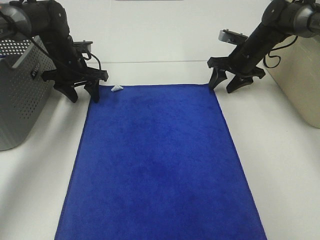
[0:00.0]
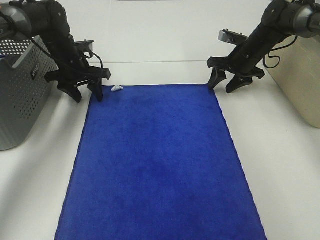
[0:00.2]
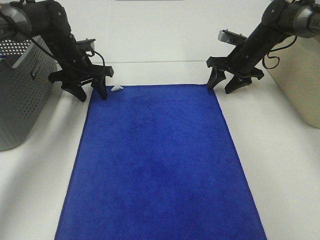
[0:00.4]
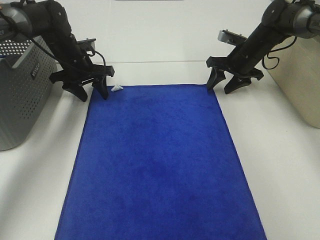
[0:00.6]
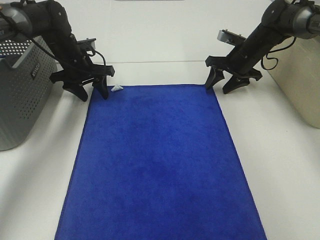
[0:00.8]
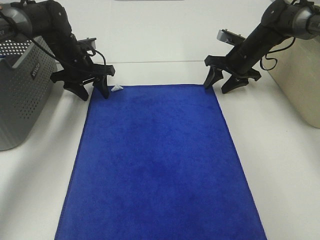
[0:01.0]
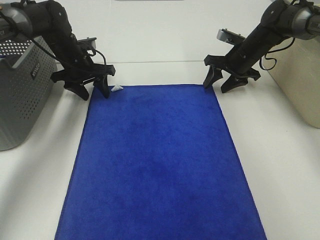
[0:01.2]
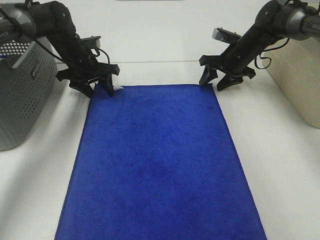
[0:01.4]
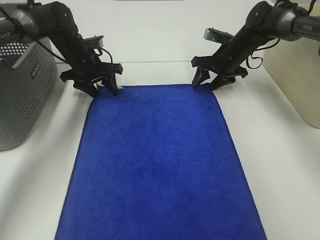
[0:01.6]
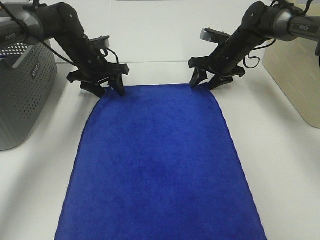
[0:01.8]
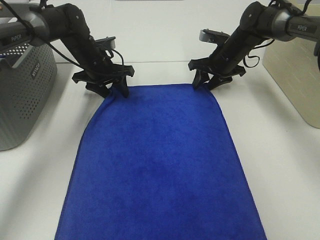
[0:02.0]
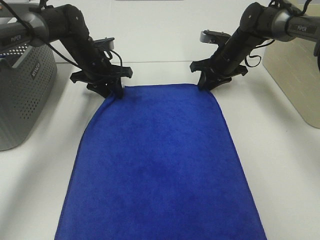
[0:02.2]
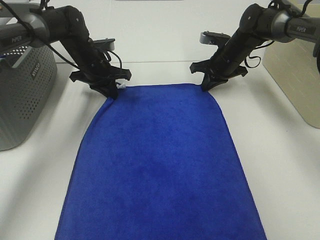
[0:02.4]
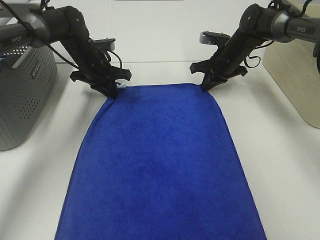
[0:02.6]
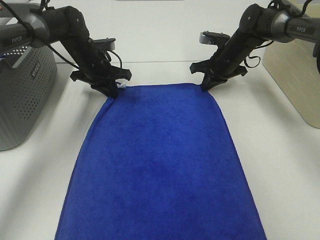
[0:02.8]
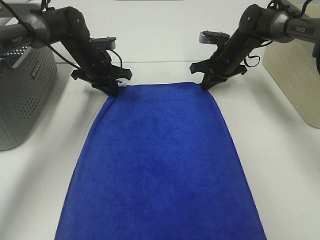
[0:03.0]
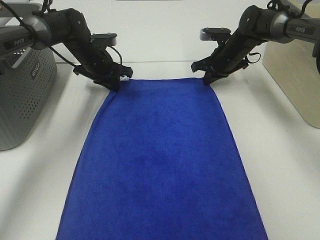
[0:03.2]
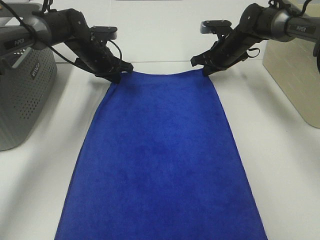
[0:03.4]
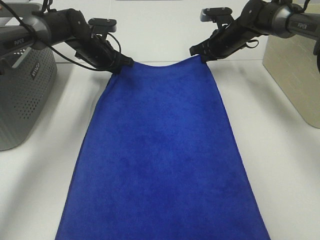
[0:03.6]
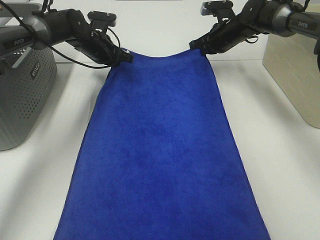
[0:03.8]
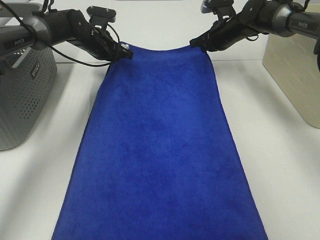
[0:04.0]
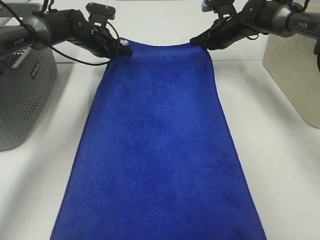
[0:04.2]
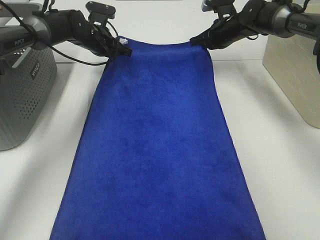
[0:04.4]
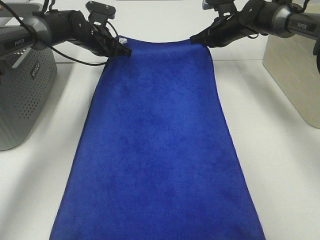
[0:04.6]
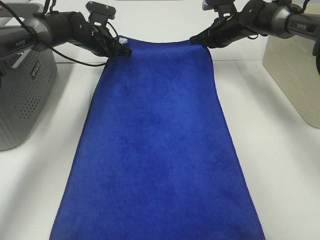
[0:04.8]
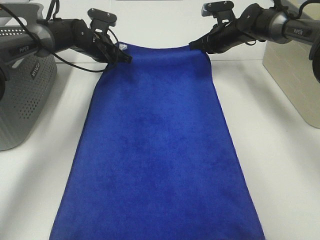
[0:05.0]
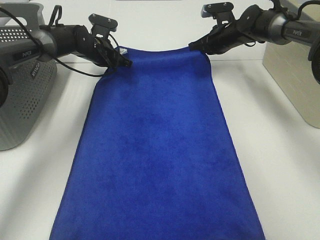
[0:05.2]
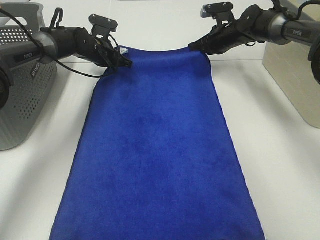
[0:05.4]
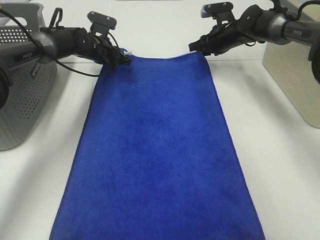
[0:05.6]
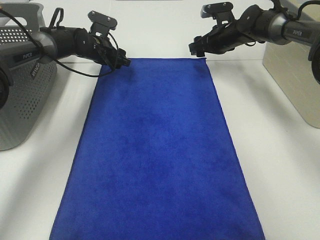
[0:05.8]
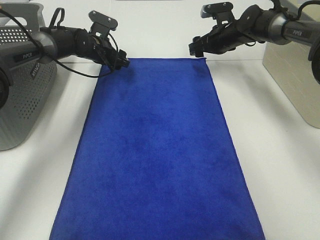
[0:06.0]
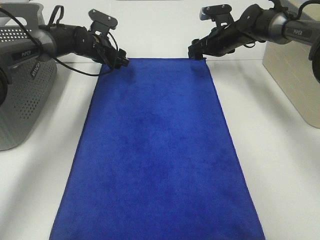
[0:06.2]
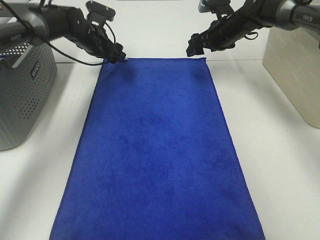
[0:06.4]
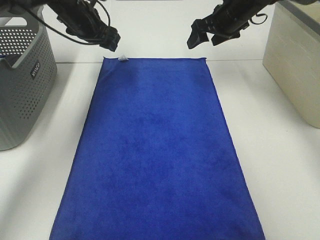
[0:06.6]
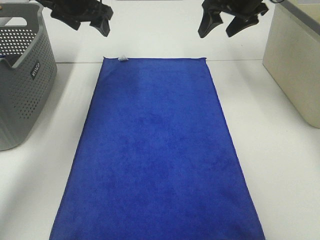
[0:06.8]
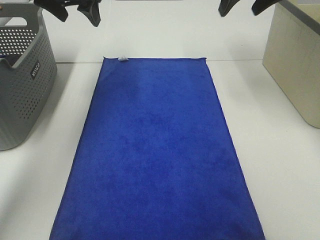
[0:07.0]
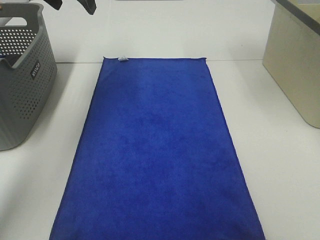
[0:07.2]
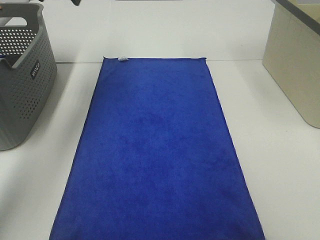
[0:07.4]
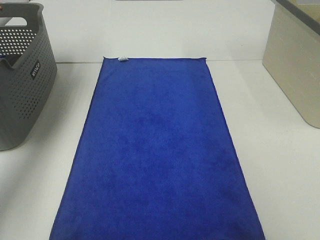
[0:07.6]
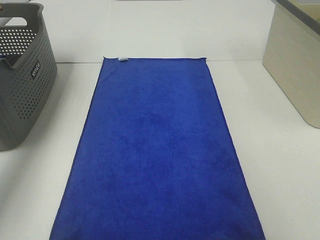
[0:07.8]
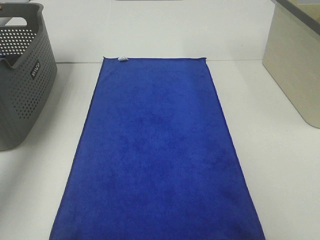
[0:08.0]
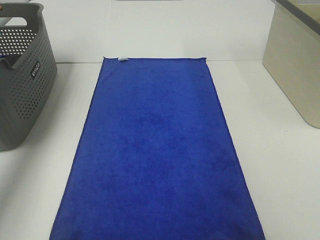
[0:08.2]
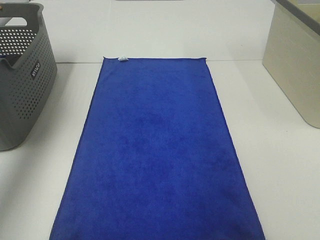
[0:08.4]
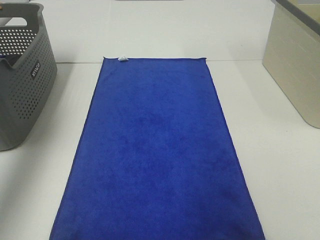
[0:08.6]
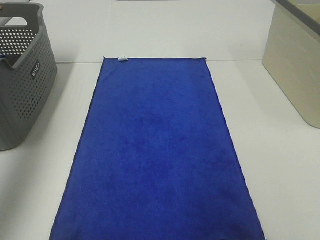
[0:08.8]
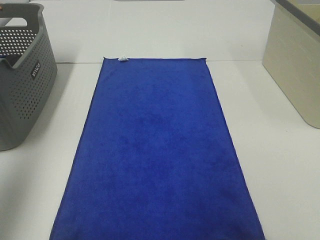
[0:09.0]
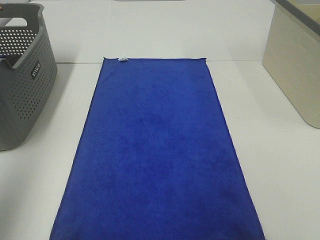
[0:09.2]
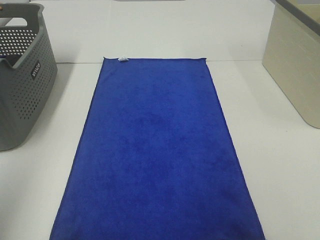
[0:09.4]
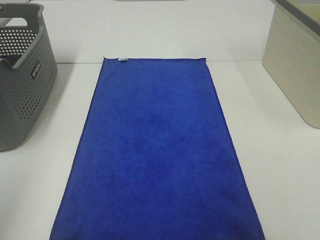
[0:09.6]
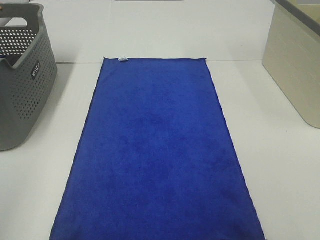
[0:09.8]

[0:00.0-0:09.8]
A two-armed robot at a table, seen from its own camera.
Task of the whole recording: Remove the towel and place it.
0:00.0 to 0:01.4: The grippers move only a little.
0:01.4 to 0:02.8: The left gripper closes its fingers. The right gripper closes.
0:02.8 to 0:04.2: The right gripper moves approximately 5 cm; the left gripper shifts by some 5 cm.
0:04.2 to 0:05.6: The left gripper opens up. The right gripper opens its fingers.
0:05.6 to 0:07.0: The two grippers go approximately 25 cm upward and backward. The right gripper opens its fingers.
0:07.0 to 0:08.4: The left gripper is displaced to the left, backward and upward by some 20 cm. Meanwhile the right gripper is displaced backward, to the right and upward by about 20 cm.
0:08.4 to 0:09.8: The left gripper moves backward, some 35 cm.

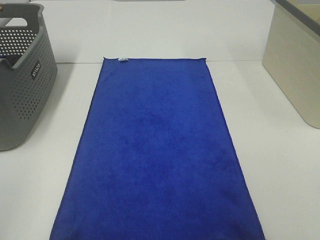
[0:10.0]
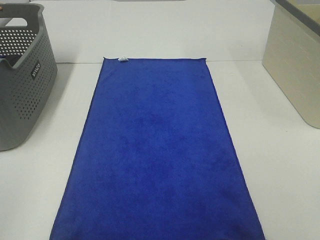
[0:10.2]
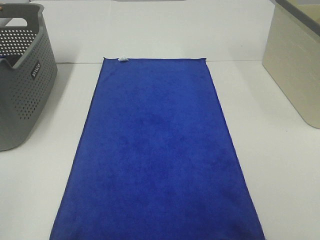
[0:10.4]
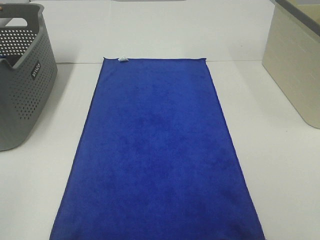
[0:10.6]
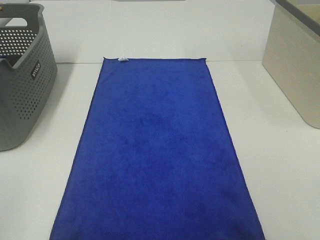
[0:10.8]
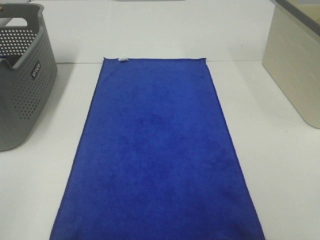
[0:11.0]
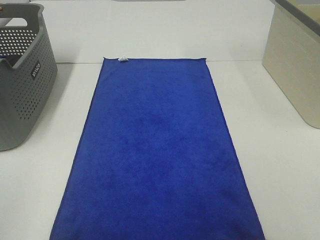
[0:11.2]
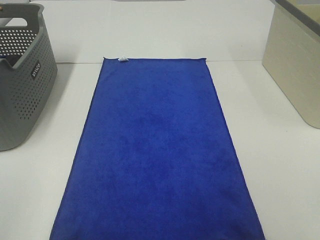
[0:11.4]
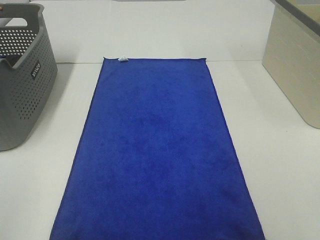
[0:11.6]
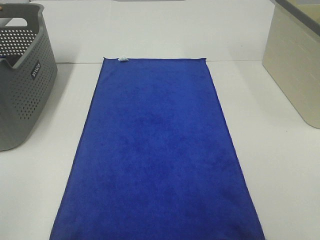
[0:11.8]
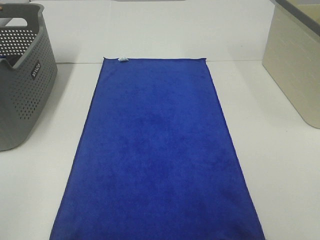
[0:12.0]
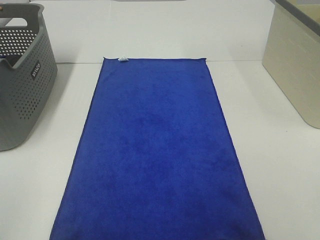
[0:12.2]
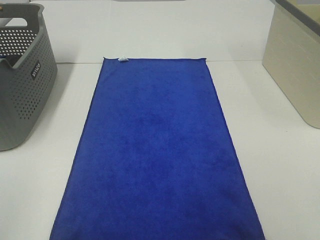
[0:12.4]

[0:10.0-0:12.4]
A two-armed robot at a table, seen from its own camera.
Task of the whole recording: Remove the towel and place it.
0:11.2 to 0:12.4: Both grippers stay put.

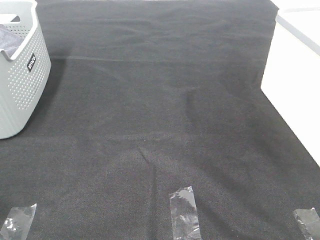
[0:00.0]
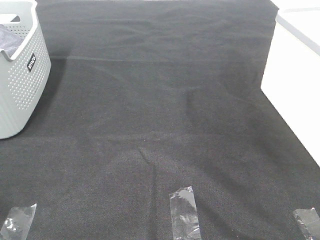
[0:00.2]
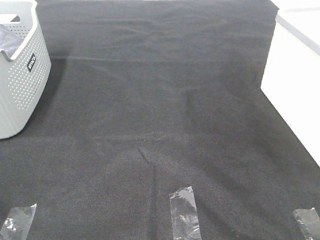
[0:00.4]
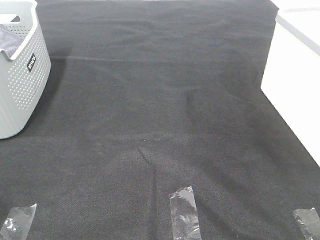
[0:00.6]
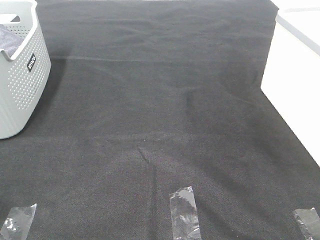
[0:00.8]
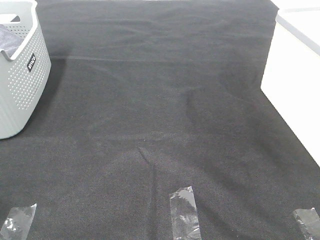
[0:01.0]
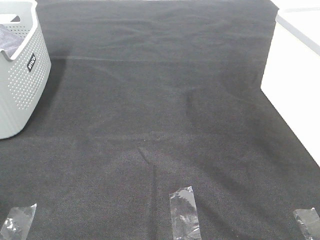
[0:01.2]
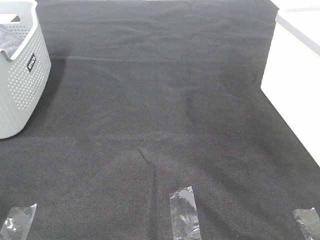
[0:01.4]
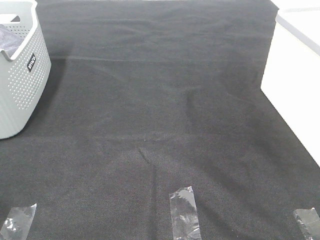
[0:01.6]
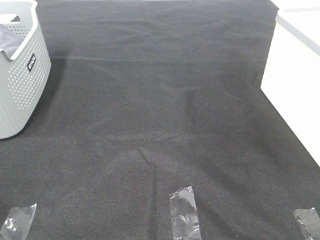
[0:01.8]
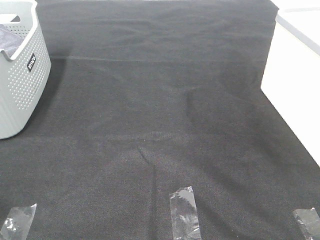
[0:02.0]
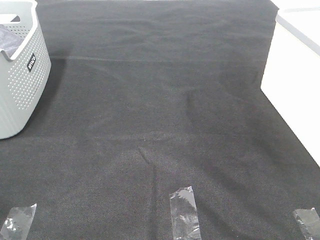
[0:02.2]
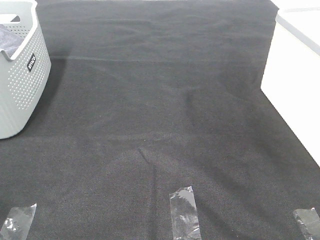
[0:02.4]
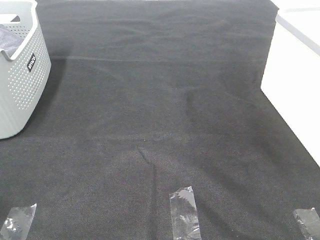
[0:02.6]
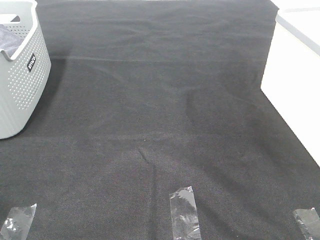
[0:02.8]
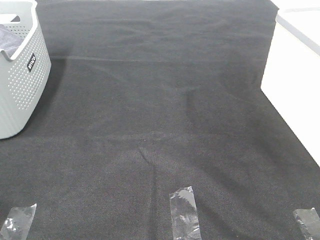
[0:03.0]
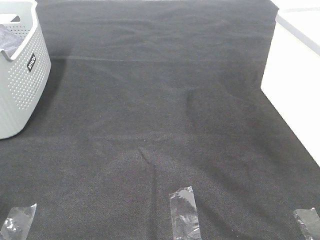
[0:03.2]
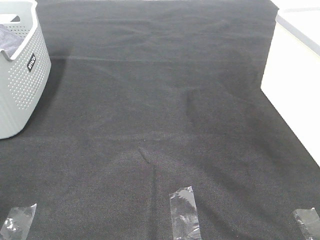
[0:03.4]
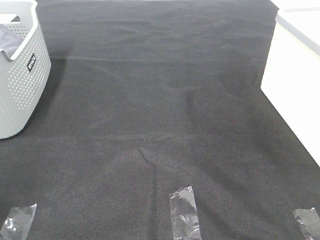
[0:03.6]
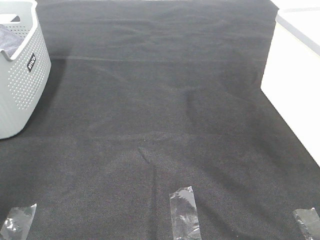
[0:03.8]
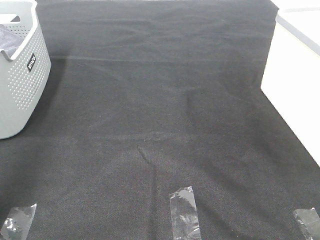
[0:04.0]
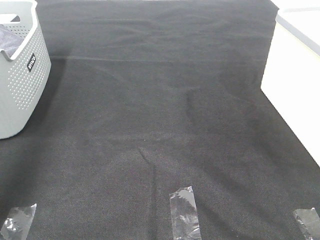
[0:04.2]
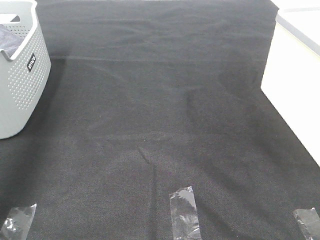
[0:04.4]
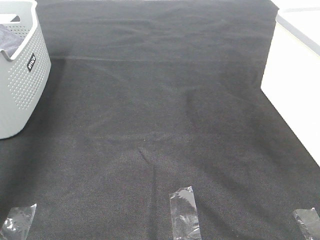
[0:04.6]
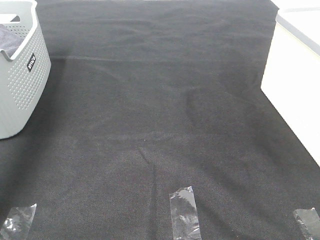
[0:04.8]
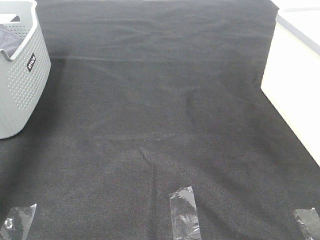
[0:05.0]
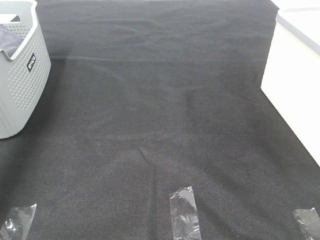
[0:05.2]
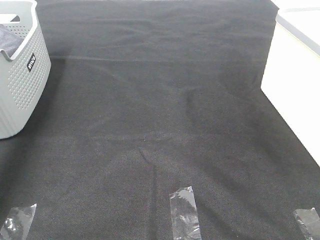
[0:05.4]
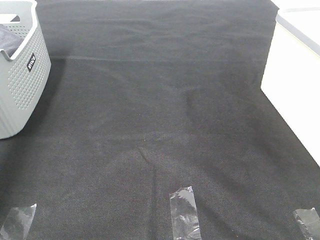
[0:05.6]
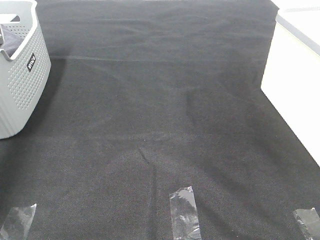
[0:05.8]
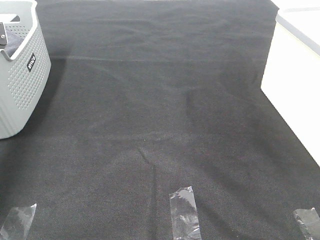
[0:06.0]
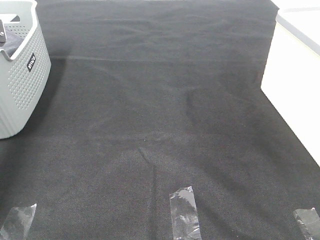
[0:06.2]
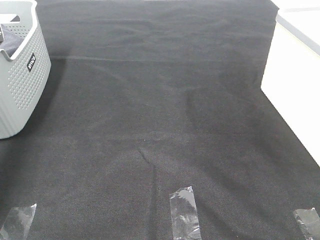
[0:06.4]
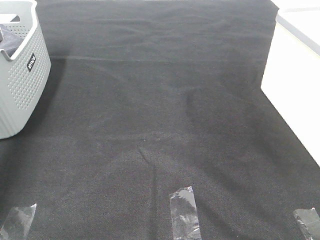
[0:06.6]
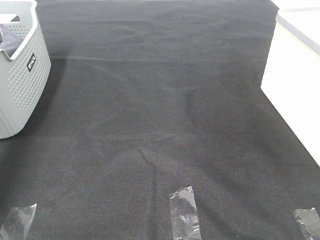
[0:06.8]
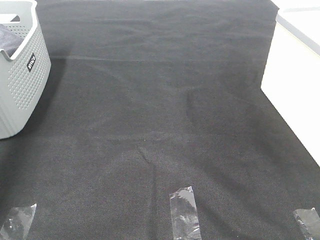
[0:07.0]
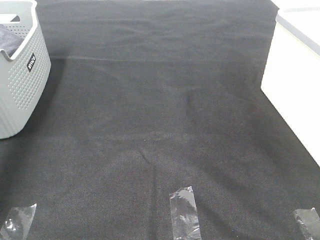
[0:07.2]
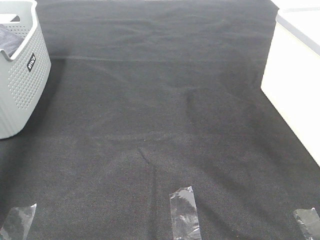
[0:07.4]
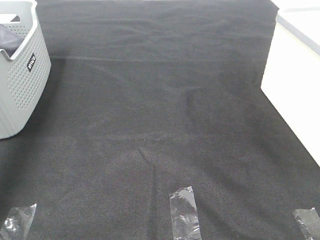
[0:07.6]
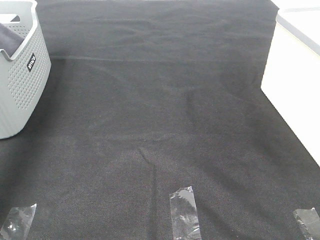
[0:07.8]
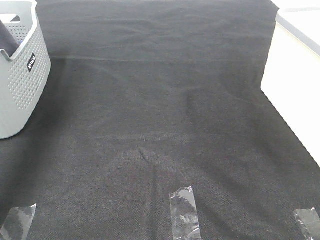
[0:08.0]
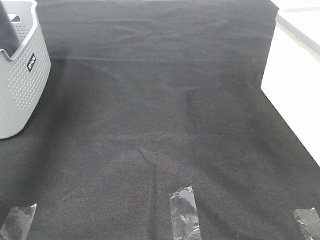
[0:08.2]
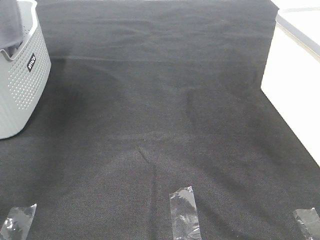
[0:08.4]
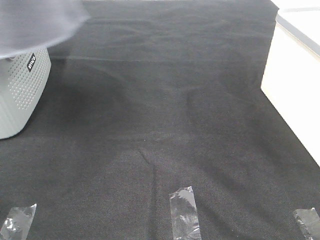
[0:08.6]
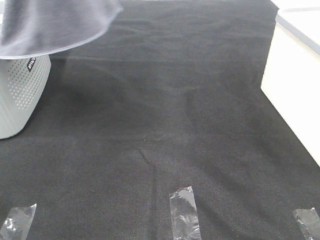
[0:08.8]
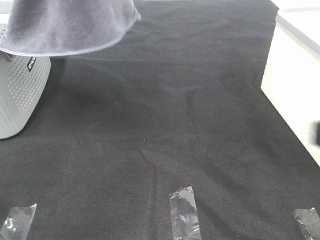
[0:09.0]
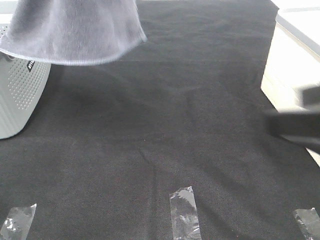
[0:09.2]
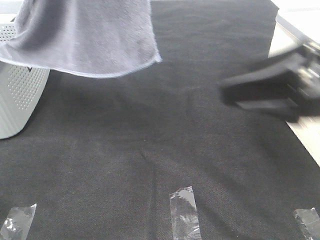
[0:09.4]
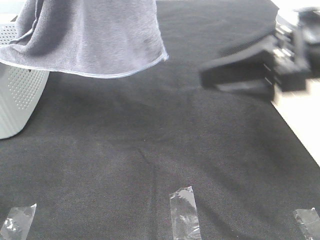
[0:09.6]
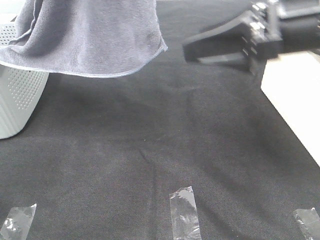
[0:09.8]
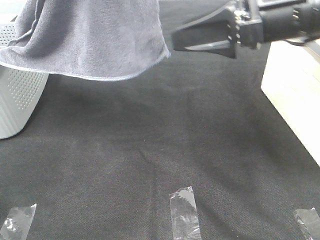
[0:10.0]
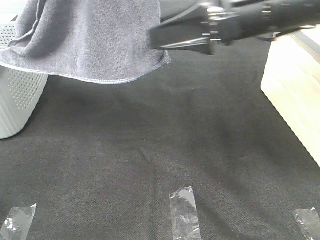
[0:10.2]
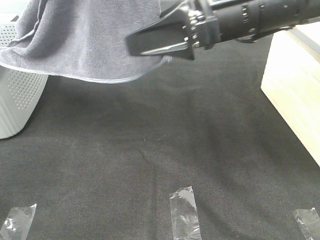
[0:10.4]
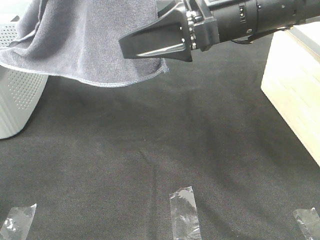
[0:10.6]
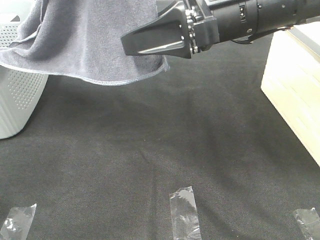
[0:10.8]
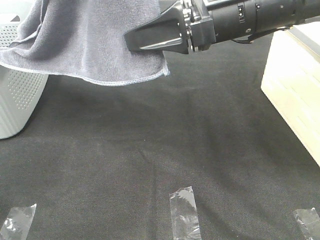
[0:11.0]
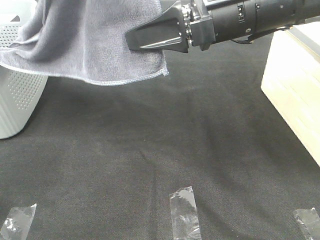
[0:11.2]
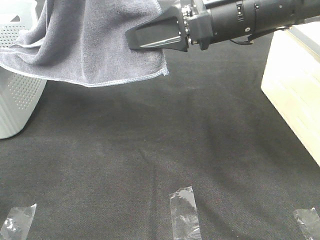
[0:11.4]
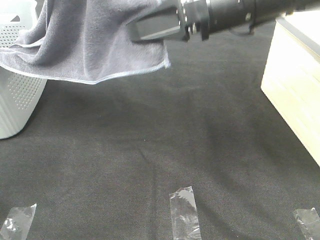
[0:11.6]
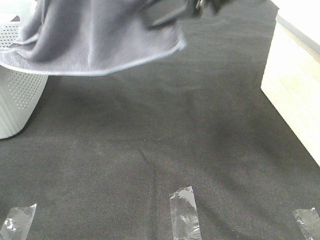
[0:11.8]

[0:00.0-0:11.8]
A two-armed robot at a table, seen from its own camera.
Task of the whole recording: Remove the towel and place it.
0:00.0 to 0:03.0: Both grippers stay put.
0:03.0 to 0:04.4: The left gripper goes approximately 35 cm forward and upward.
0:04.4 to 0:06.0: The left gripper goes approximately 30 cm downward and forward.
0:07.4 to 0:08.8: The left gripper is displaced to the right, upward and backward by approximately 30 cm.
0:08.8 to 0:10.4: The right gripper goes some 30 cm forward and to the left, while the left gripper travels to the right by about 5 cm.
0:10.4 to 0:11.8: The right gripper travels upward by about 5 cm, and closes up.
